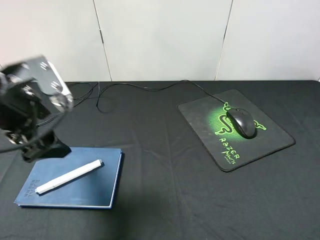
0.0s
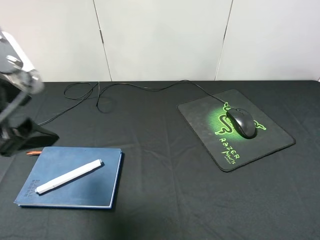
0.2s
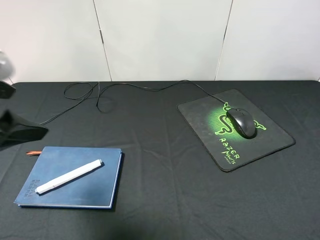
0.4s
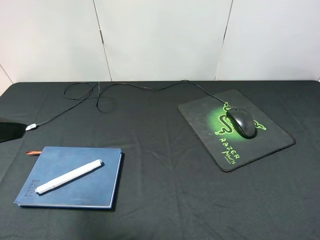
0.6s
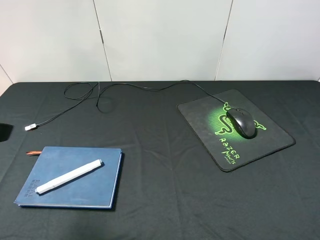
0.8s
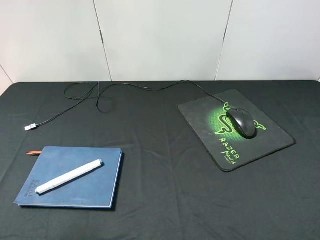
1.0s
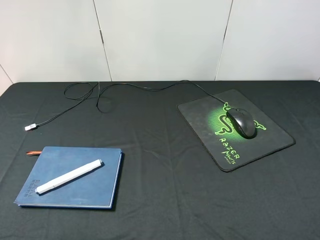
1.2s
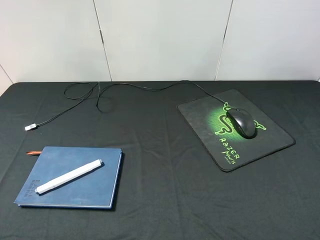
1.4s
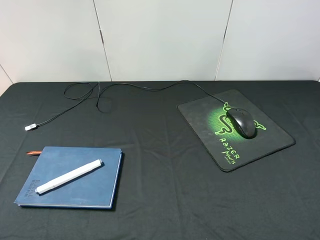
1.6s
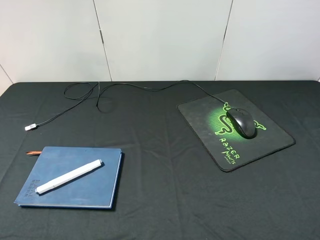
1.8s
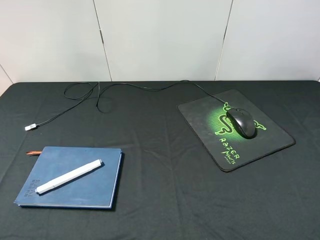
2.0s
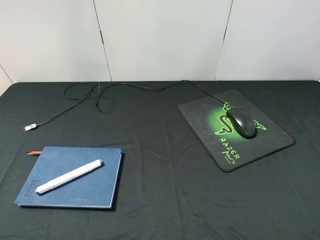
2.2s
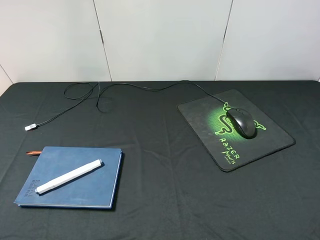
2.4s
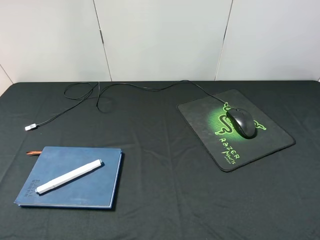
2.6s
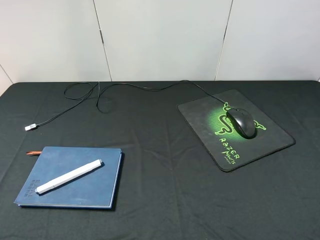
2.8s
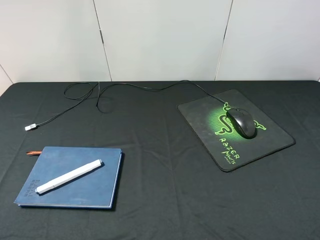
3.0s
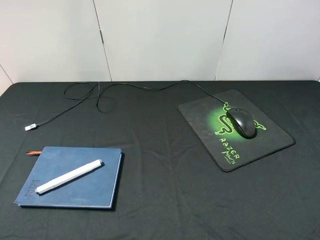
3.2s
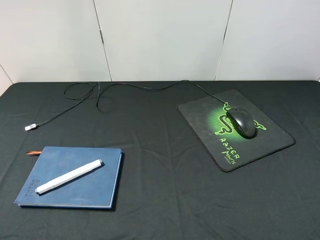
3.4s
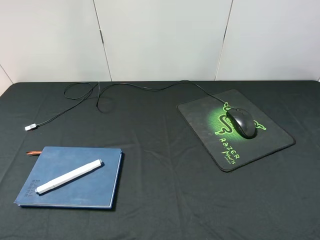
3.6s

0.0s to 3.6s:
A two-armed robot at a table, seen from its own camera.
0.0s to 1.8s: The left gripper heads backward, to the left and upward, covering roughly 20 cm.
